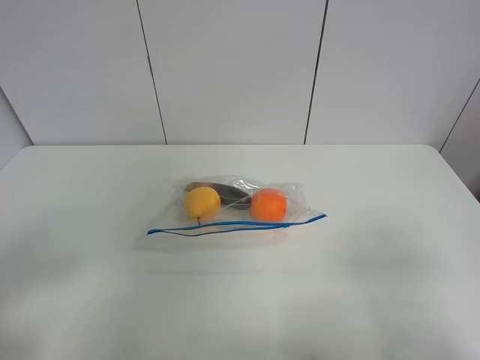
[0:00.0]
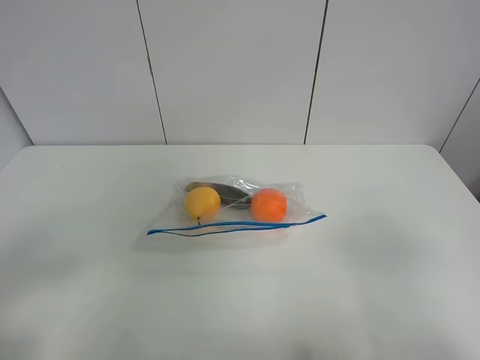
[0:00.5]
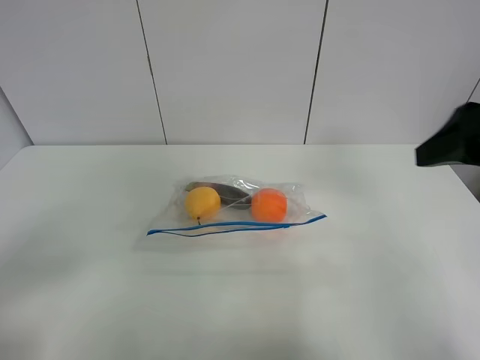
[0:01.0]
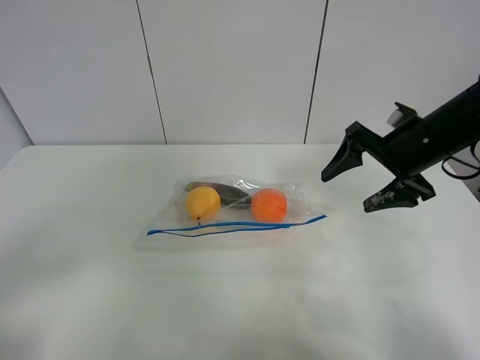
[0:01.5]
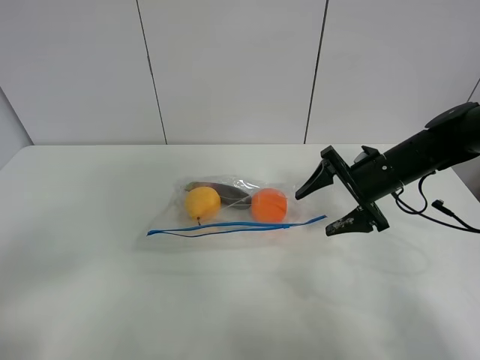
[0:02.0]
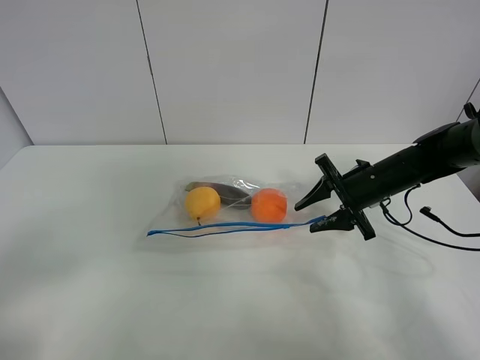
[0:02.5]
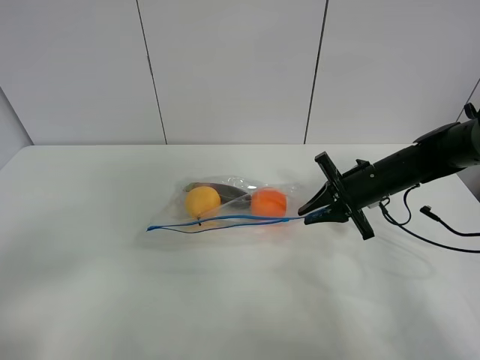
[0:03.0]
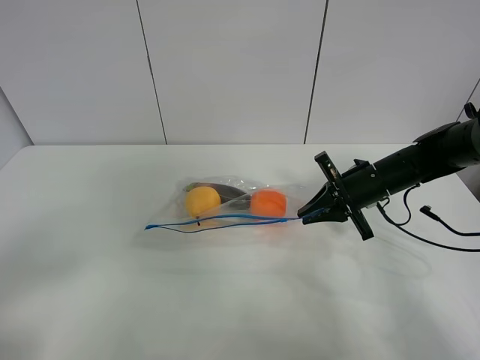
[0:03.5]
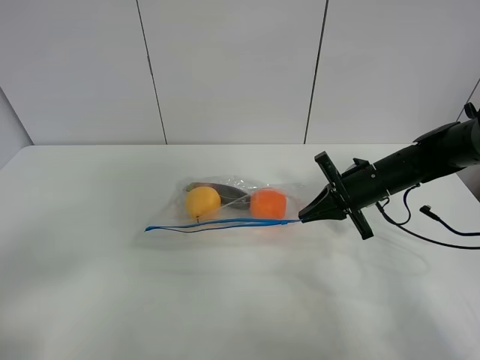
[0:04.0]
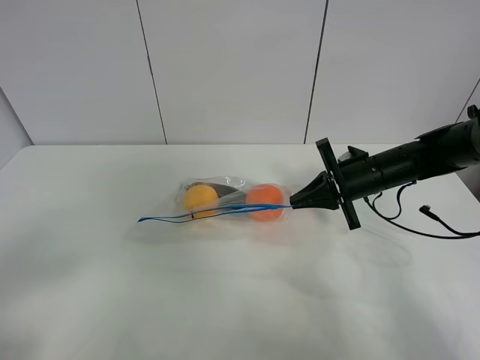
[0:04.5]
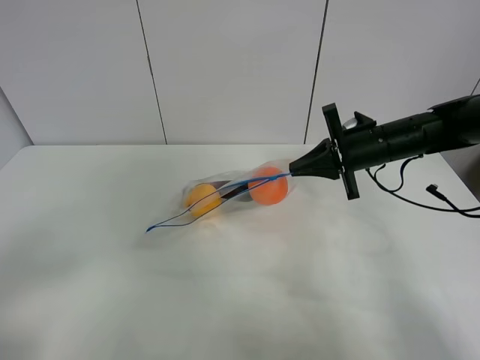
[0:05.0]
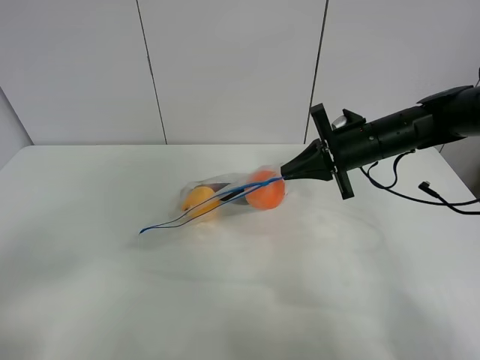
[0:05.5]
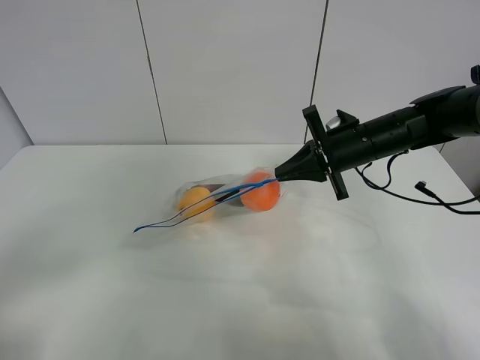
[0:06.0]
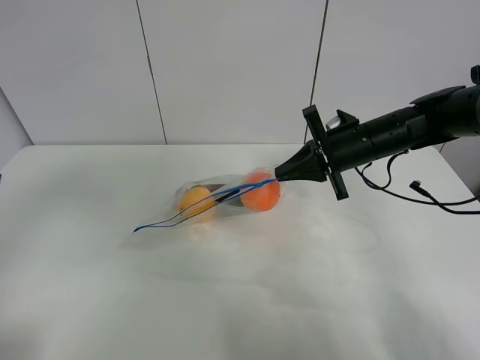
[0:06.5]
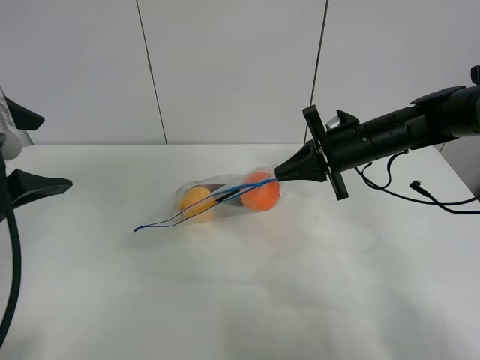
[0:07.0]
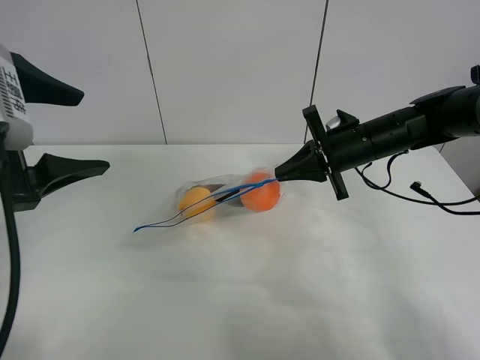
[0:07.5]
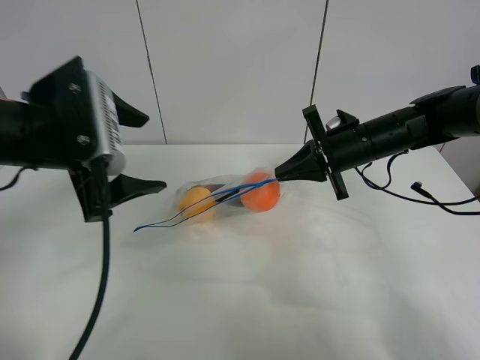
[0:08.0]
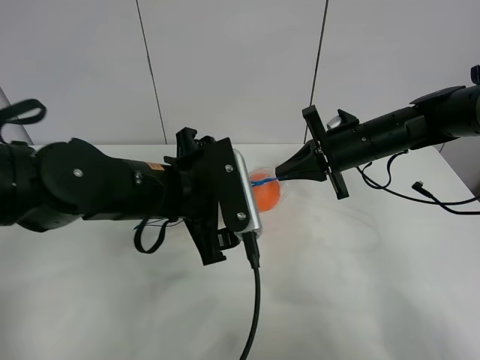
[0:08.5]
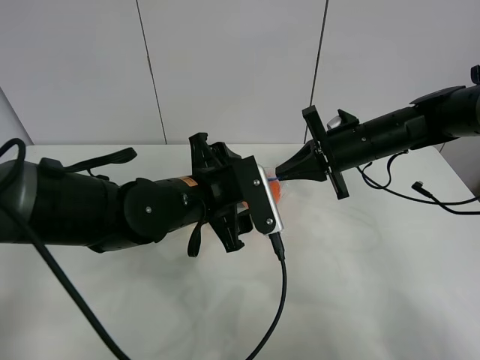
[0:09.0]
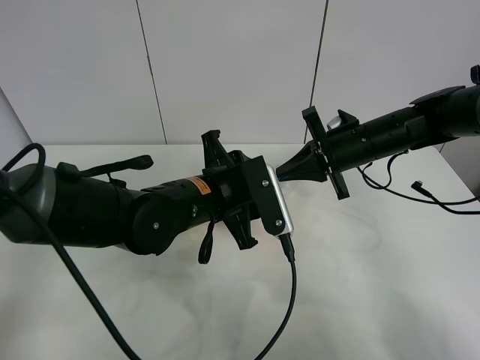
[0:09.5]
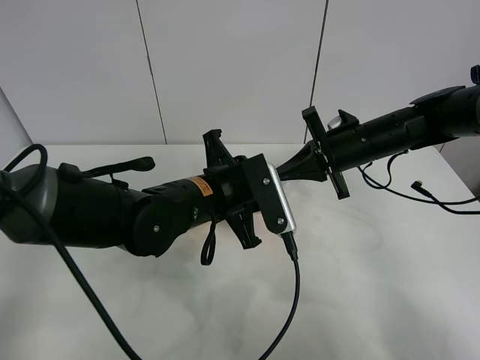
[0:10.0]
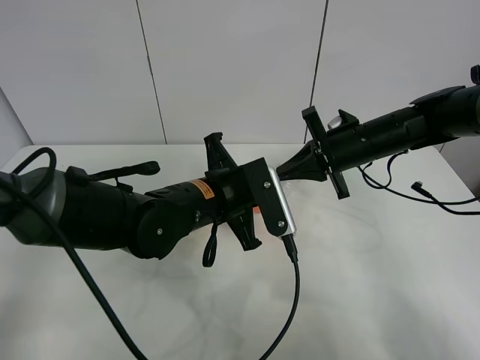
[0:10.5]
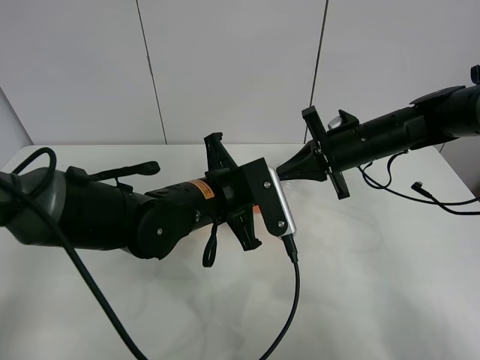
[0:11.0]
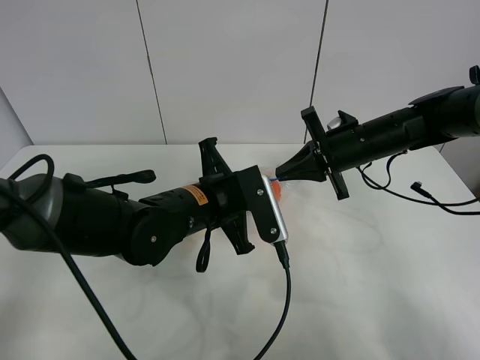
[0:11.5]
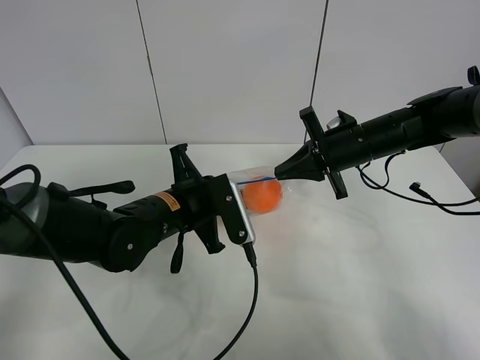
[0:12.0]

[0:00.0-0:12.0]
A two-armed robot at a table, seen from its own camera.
Step, 0:00.0 to 0:03.5: Grasp the fruit bag with right gripper.
Step, 0:04.0 to 0:05.0: Lift the fruit bag with your right gripper.
0:00.0 to 0:02.0: The right gripper is displaced forward by approximately 35 cm.
0:02.0 to 0:04.0: The right gripper closes up.
0:04.0 to 0:06.0: The right gripper travels upward by roughly 5 cm.
0:06.0 to 0:08.0: The left gripper moves forward and to the right, about 25 cm.
0:08.0 to 0:10.0: The left gripper moves to the right and downward, about 20 cm, and closes its fingers.
0:10.0 to 0:12.0: The left gripper shifts roughly 5 cm to the left, and closes.

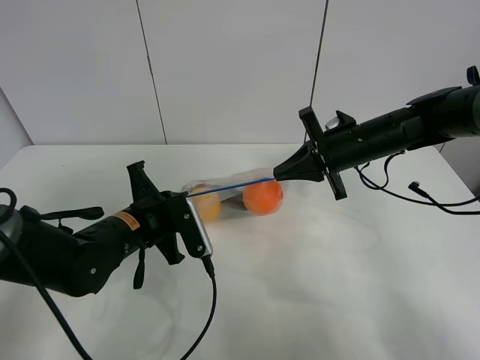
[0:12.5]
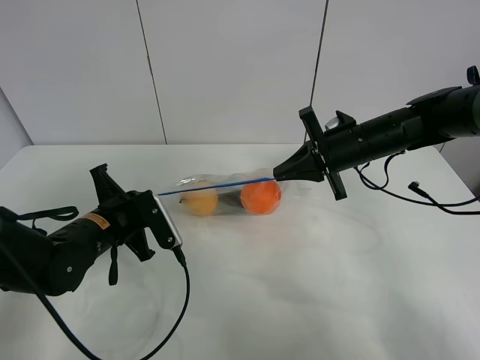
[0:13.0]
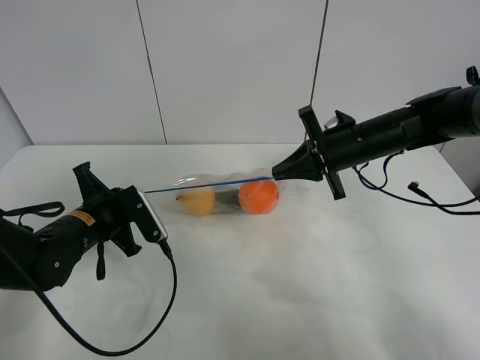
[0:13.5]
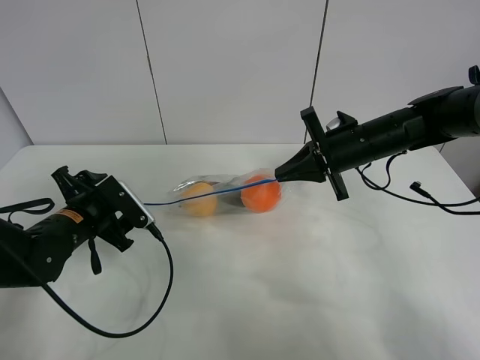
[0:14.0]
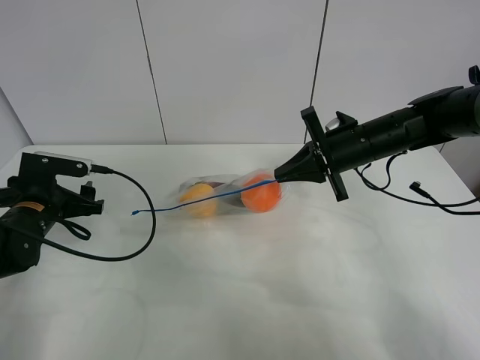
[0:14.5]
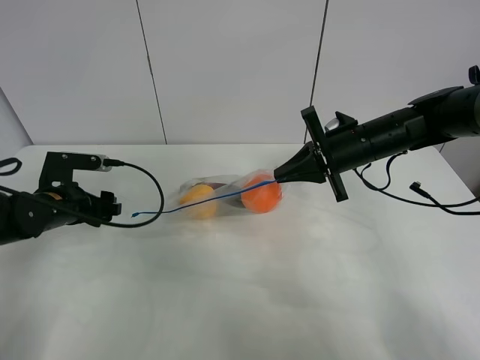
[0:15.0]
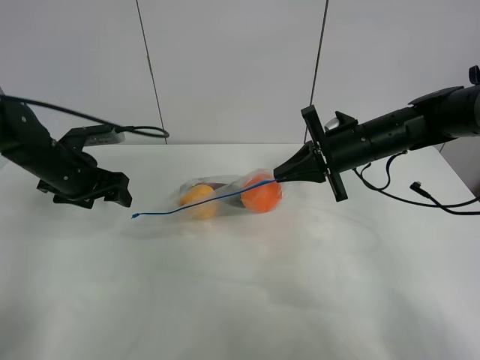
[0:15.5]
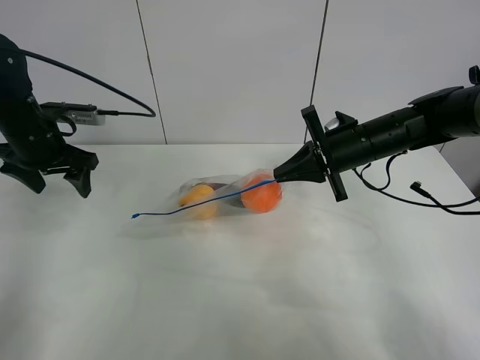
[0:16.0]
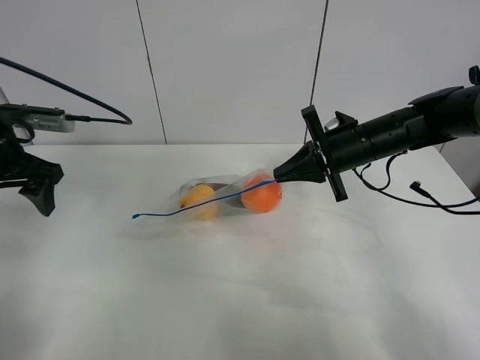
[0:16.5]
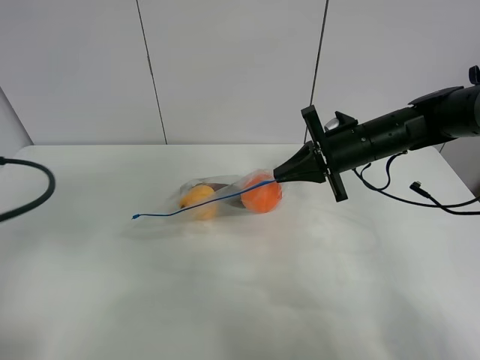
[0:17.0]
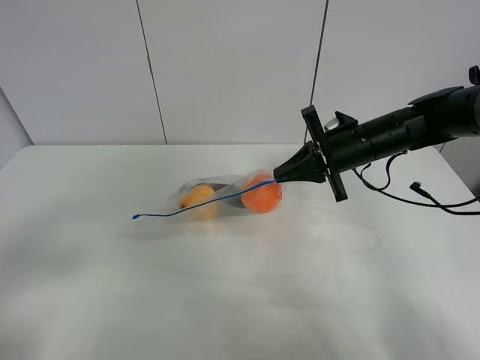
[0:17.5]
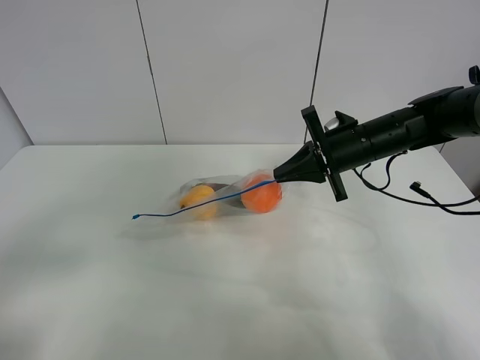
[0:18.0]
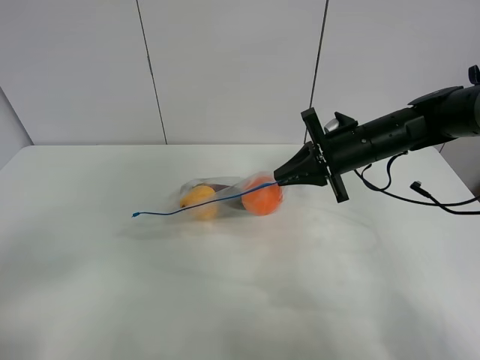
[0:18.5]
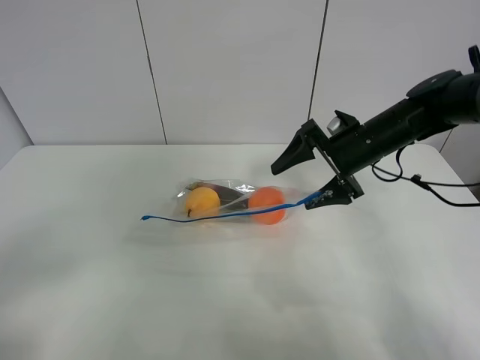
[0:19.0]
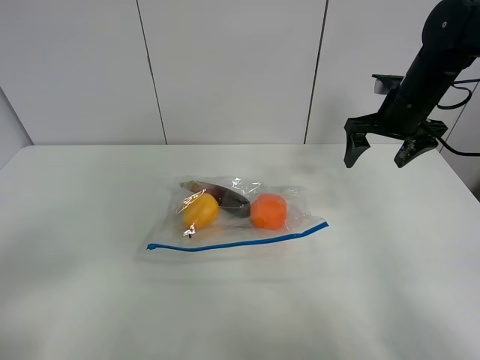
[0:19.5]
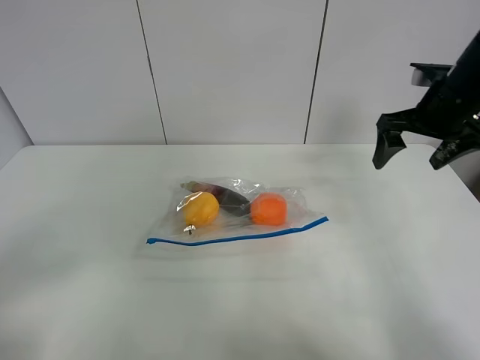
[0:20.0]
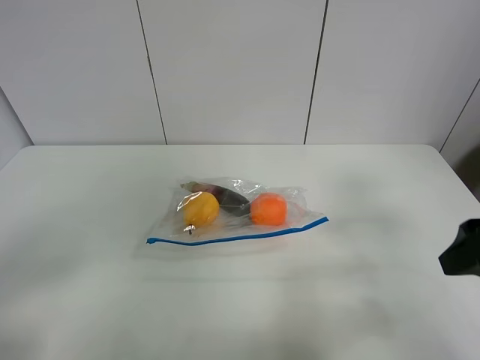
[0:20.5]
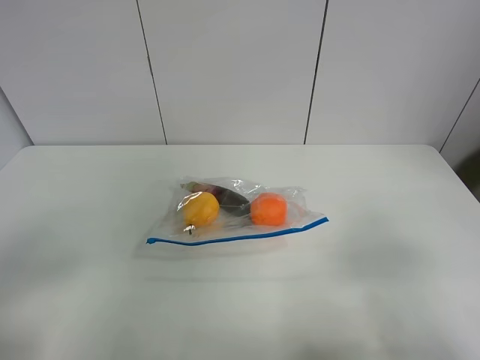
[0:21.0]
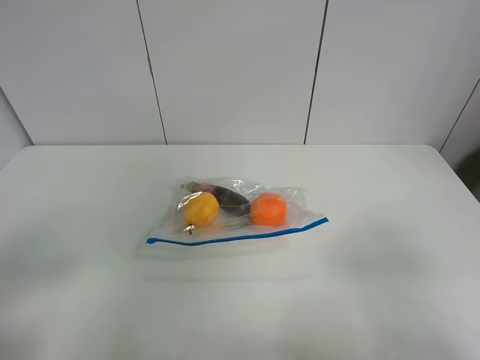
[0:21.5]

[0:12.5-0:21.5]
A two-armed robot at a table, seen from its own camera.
0:12.5 to 0:14.5: The left gripper goes some 15 cm to the left, and opens its fingers.
0:14.5 to 0:17.0: The left gripper shifts some 20 cm backward and upward.
0:17.0 to 0:19.5: The right gripper heads to the right and upward, covering approximately 10 cm, and opens up. The left gripper travels backward by about 10 cm.
0:19.5 to 0:21.5: The right gripper travels backward by roughly 40 cm.

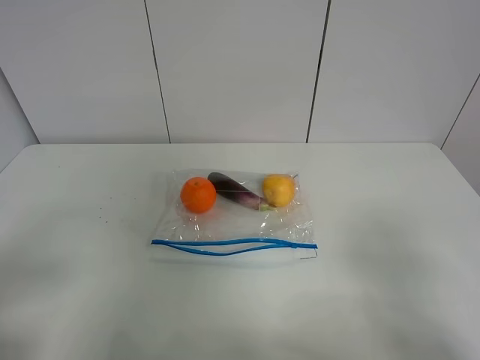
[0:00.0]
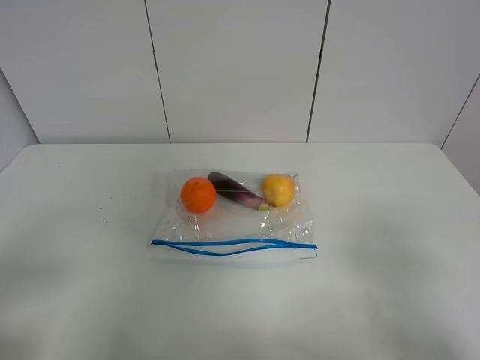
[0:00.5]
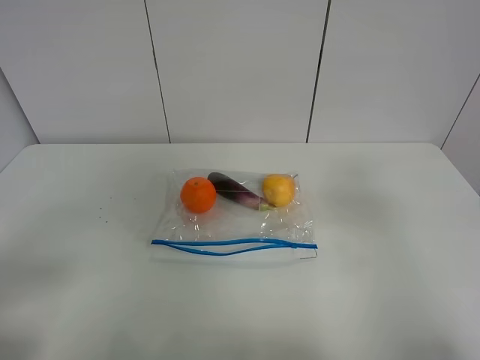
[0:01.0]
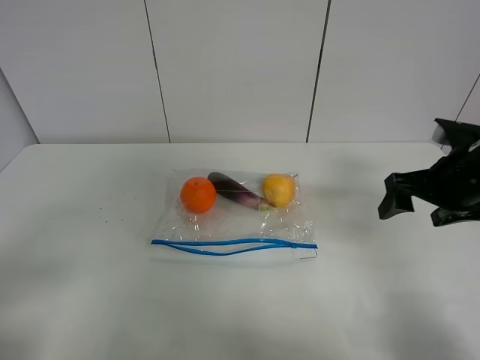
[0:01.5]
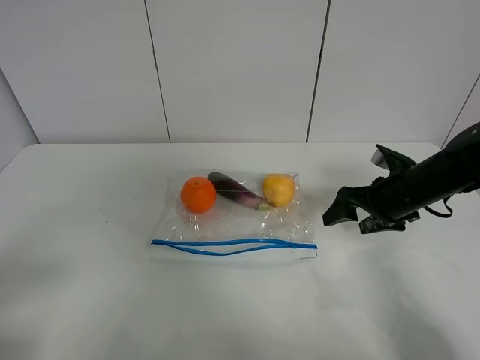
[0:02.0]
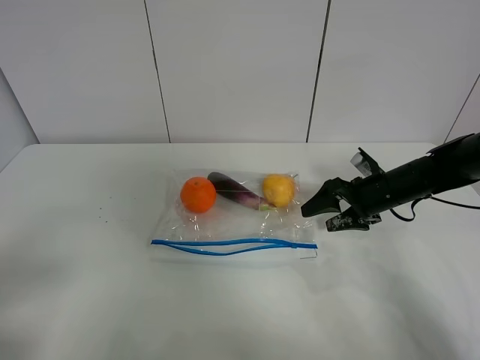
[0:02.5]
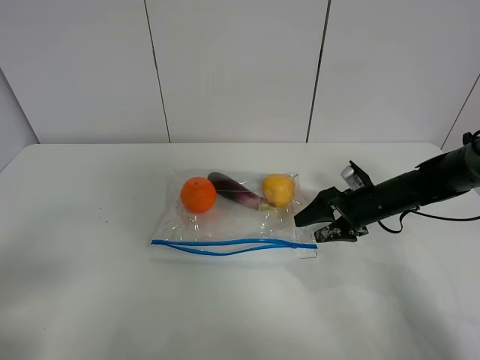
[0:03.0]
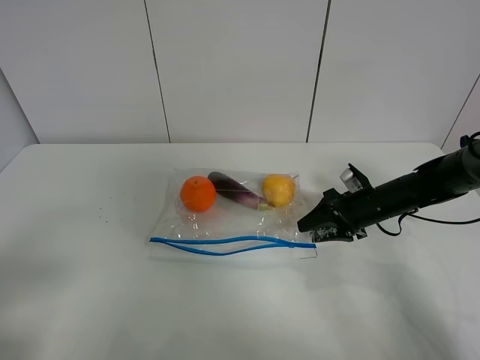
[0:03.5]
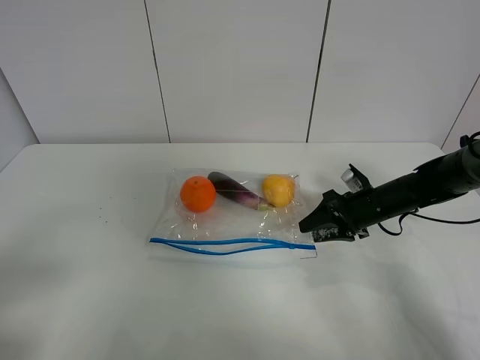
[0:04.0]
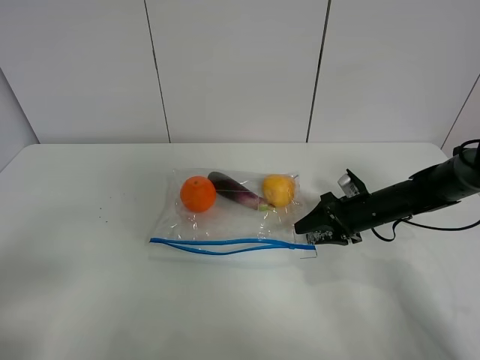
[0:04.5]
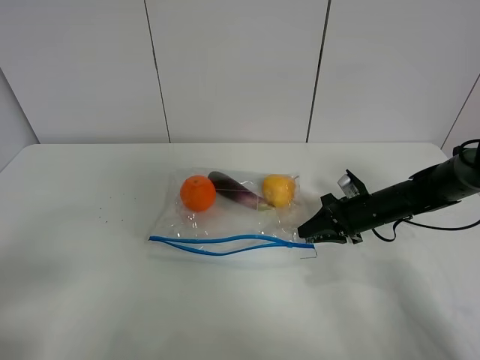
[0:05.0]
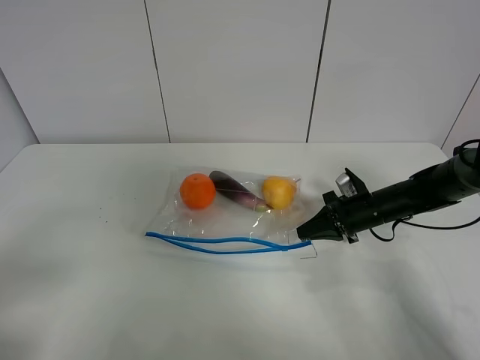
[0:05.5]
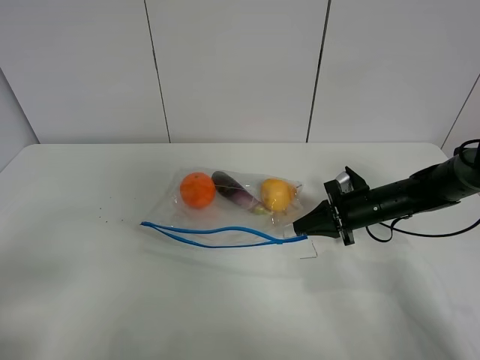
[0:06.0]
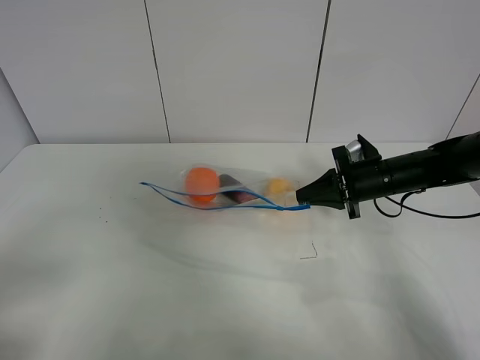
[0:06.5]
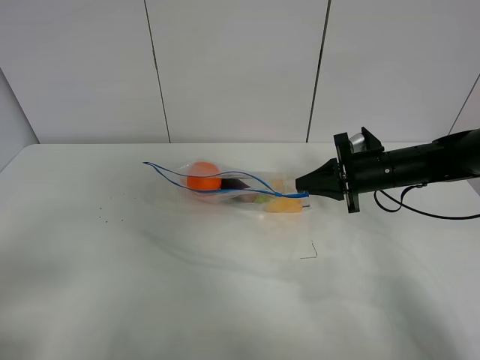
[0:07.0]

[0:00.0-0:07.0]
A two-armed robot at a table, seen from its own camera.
Step, 0:00.0 to 0:05.0: Grasp the fruit bag with right gripper.
0:00.0 to 0:02.0: The right gripper shifts about 35 cm forward and downward.
0:02.0 to 0:03.5: The right gripper goes roughly 5 cm downward.
0:03.5 to 0:05.0: The right gripper closes its fingers.
0:05.0 to 0:07.0: The right gripper heads upward, covering roughly 10 cm.
